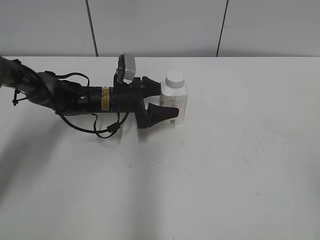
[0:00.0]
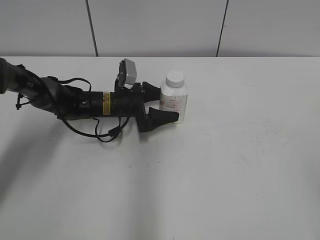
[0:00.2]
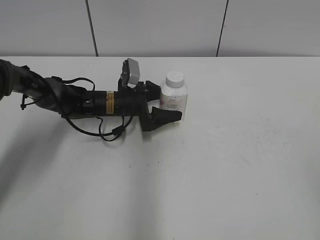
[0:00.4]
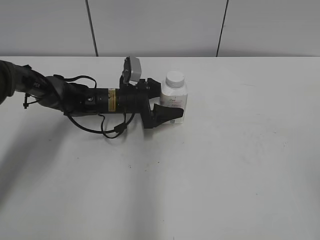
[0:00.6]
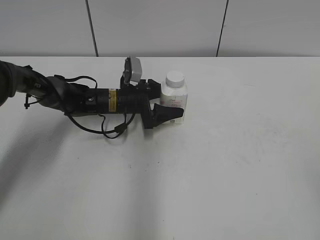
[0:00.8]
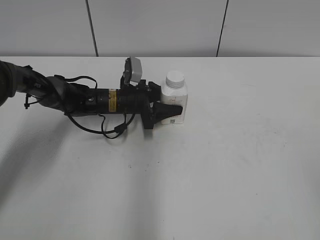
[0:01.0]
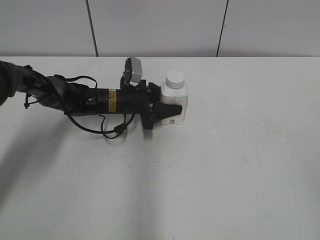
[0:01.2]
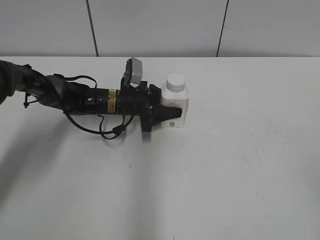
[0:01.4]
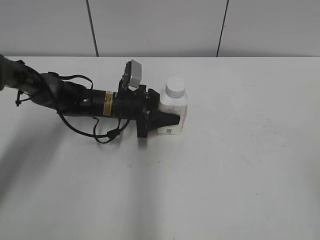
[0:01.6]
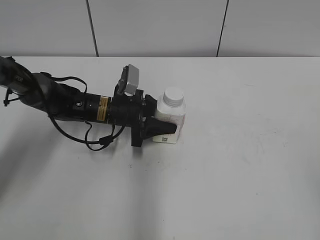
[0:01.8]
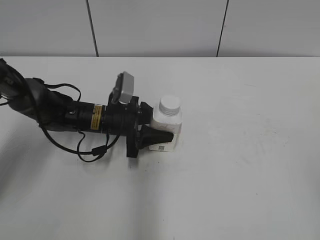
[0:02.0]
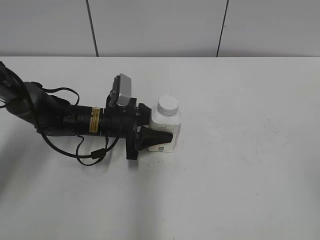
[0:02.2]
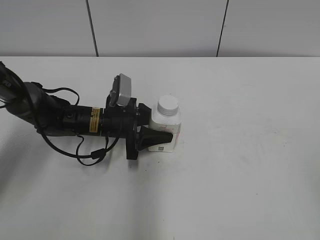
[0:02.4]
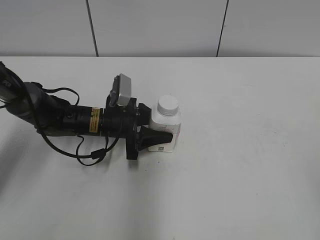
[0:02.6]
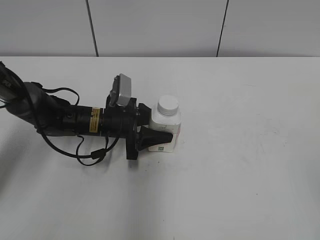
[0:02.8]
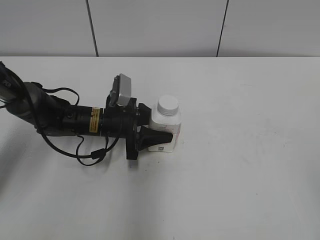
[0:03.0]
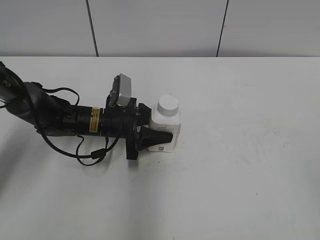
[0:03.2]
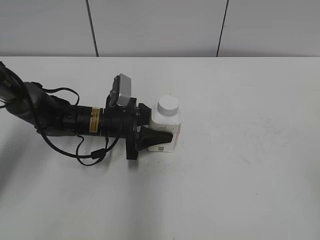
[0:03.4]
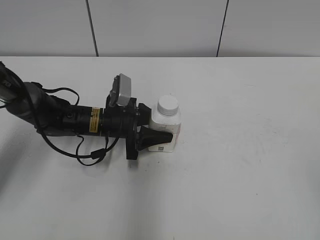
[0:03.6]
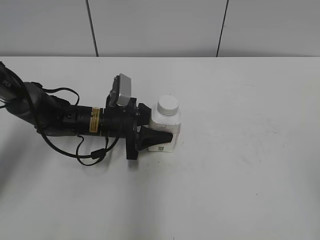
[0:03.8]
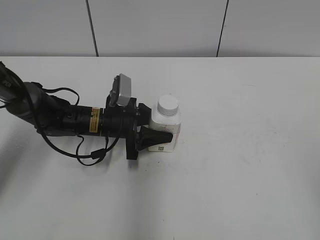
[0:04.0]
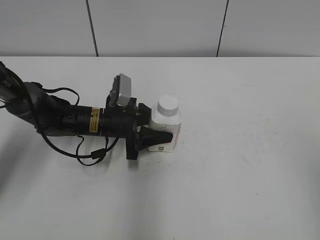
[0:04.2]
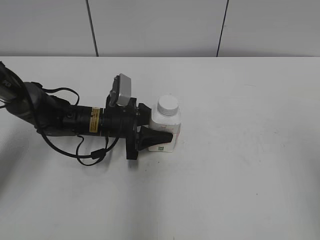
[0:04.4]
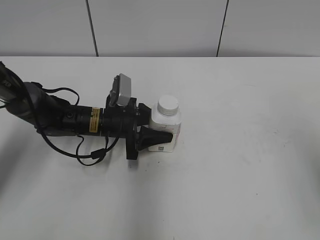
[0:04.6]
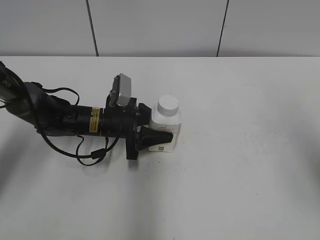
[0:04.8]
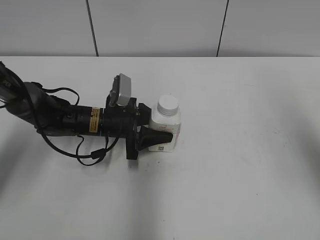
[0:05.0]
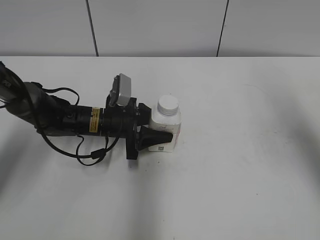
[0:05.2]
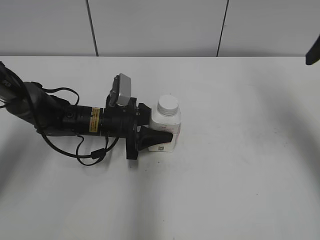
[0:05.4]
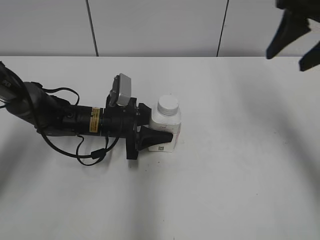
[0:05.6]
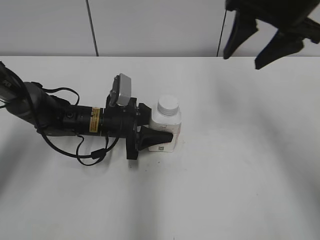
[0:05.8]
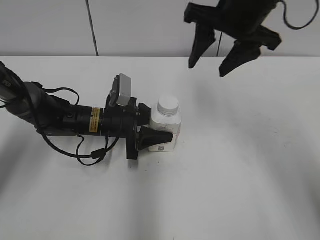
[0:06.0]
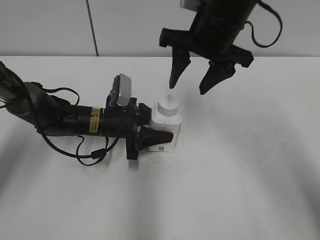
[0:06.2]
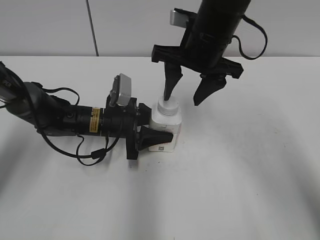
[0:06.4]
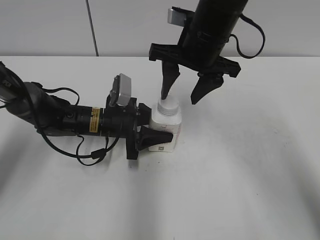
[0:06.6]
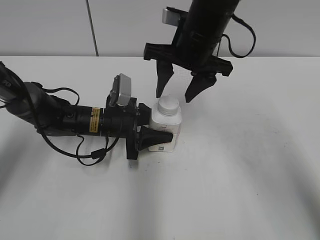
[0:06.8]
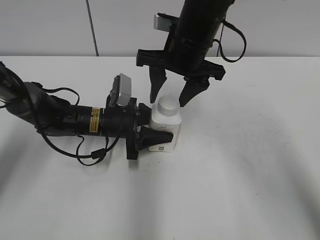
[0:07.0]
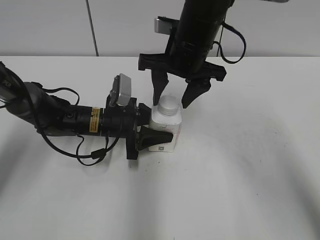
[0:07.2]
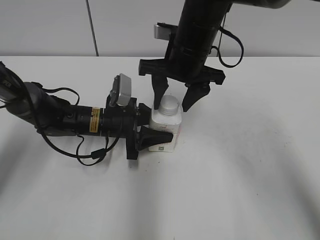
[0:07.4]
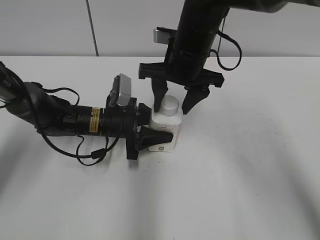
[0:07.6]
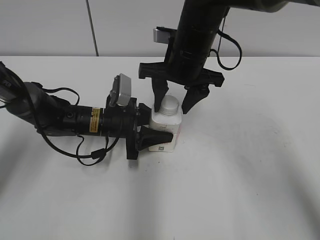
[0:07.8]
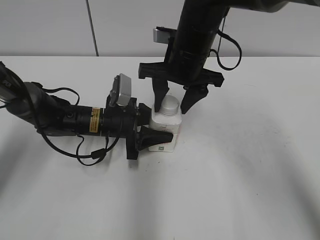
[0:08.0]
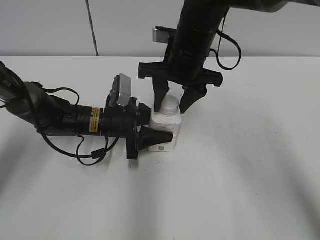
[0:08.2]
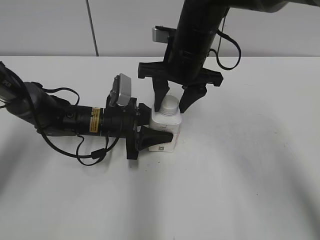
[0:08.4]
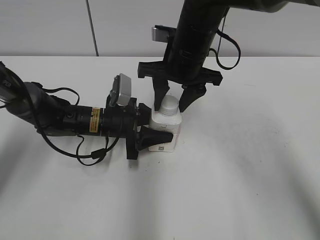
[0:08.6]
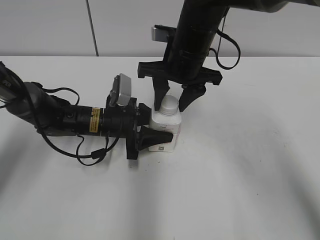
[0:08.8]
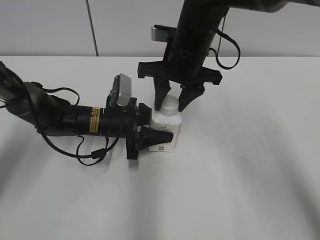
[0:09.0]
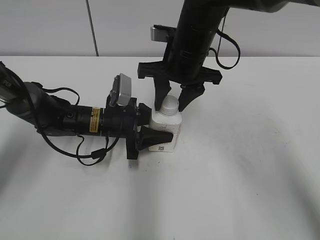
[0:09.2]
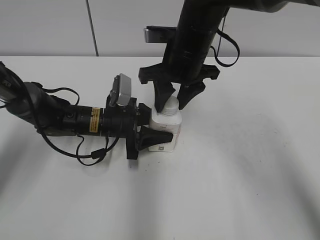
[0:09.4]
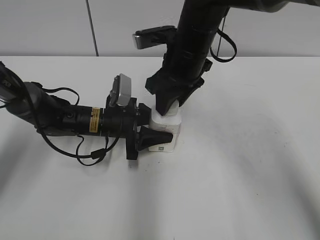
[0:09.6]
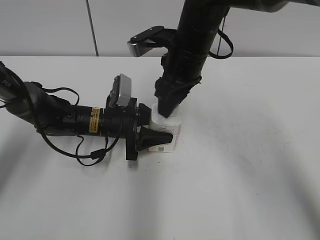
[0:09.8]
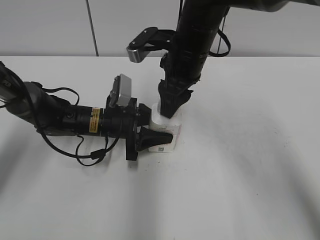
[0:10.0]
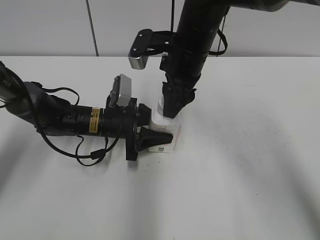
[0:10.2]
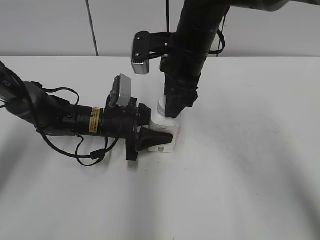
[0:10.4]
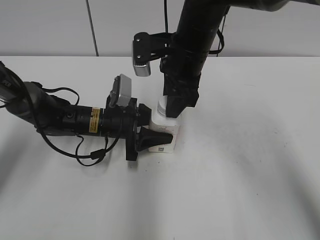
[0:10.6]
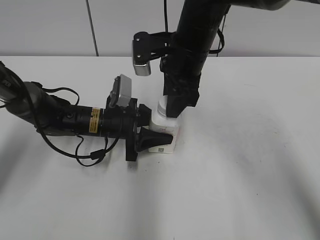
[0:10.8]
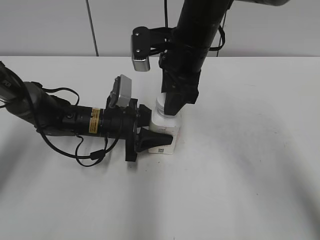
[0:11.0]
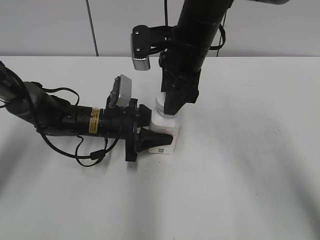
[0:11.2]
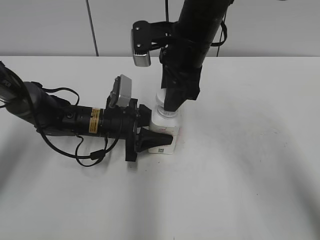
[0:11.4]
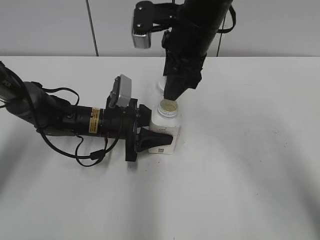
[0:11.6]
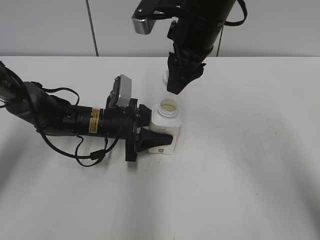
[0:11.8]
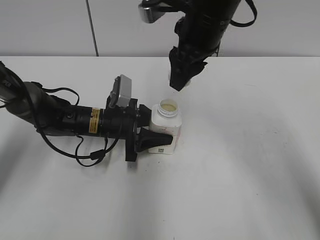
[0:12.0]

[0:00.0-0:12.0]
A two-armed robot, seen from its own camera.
Step, 0:01.4 to 0:03.0: Lift the bottle and move it to the center of the table with the left gripper.
Step, 0:03.2 to 0:11.6: Unscrew the bottle cap with the right gripper while holding the bottle with the left gripper.
0:00.0 to 0:01.6: The left gripper closes.
0:01.6 to 0:03.0: The left gripper moves backward, some 5 cm.
0:04.4 to 0:06.0: The right gripper moves forward and to the left, some 30 cm.
0:06.0 to 0:07.6: The right gripper heads downward and to the left, covering approximately 10 cm.
0:07.6 to 0:09.0: The right gripper closes.
0:10.4 to 0:12.0: The right gripper shifts some 5 cm upward.

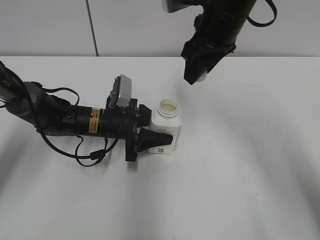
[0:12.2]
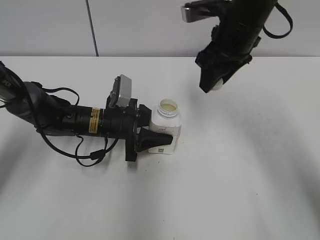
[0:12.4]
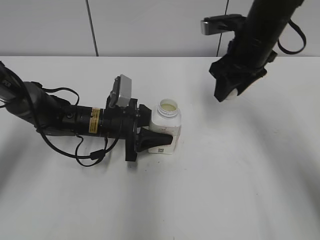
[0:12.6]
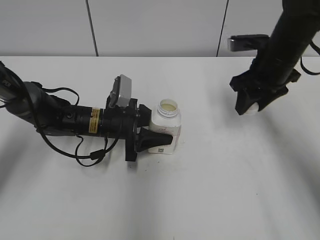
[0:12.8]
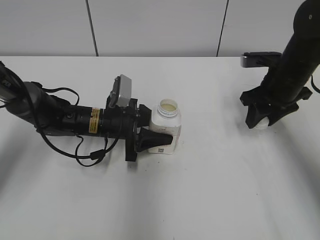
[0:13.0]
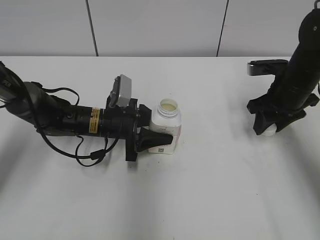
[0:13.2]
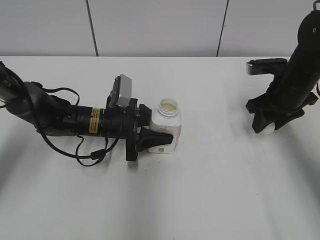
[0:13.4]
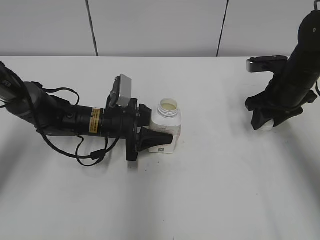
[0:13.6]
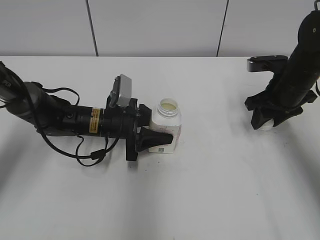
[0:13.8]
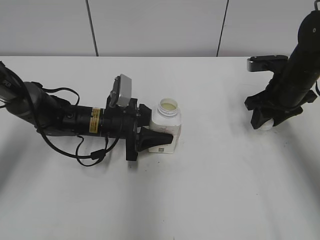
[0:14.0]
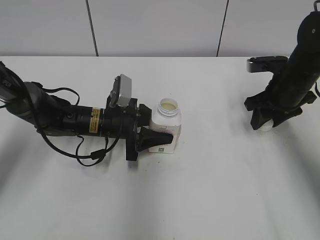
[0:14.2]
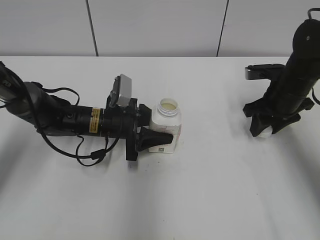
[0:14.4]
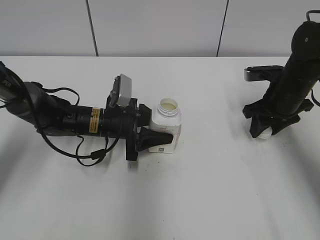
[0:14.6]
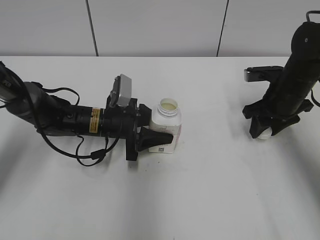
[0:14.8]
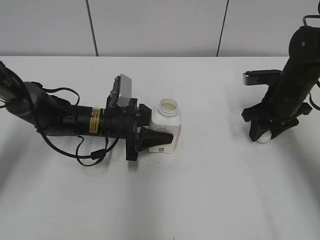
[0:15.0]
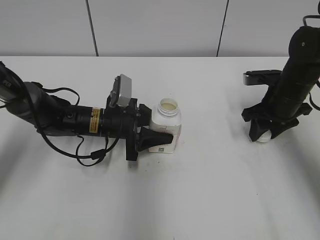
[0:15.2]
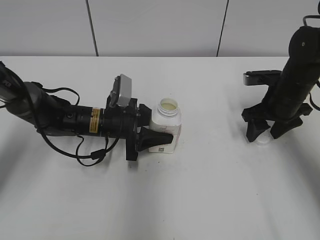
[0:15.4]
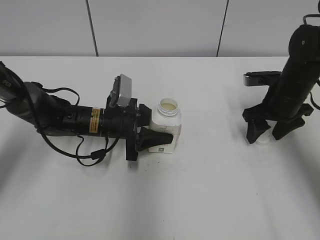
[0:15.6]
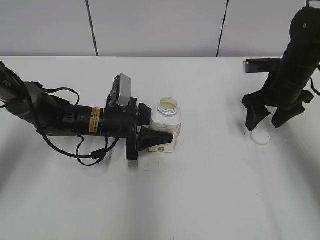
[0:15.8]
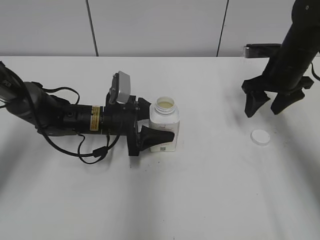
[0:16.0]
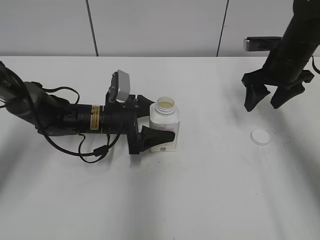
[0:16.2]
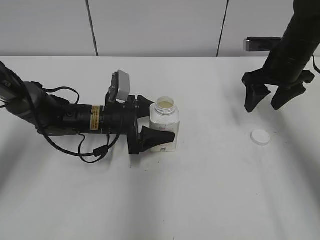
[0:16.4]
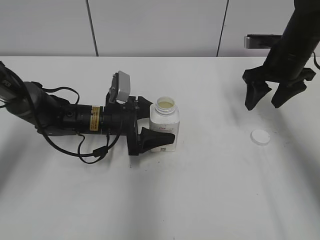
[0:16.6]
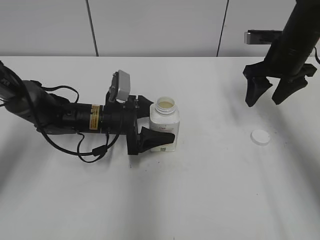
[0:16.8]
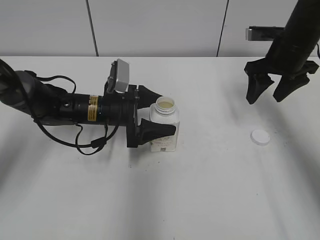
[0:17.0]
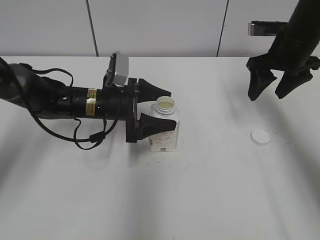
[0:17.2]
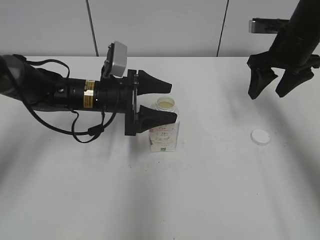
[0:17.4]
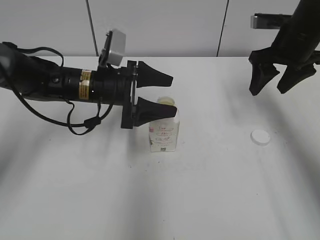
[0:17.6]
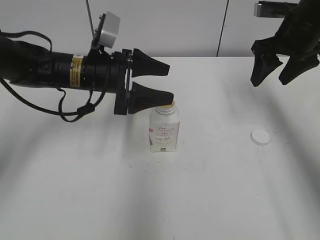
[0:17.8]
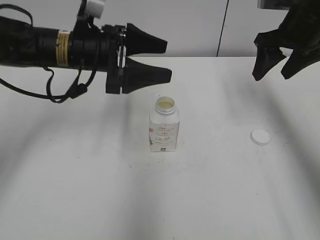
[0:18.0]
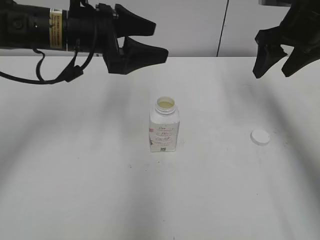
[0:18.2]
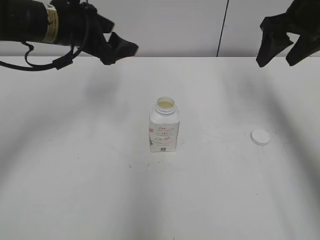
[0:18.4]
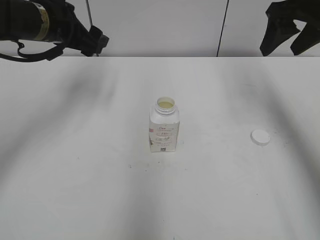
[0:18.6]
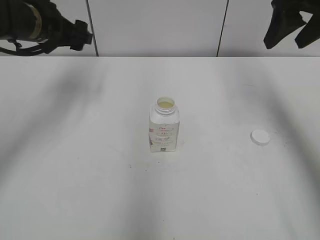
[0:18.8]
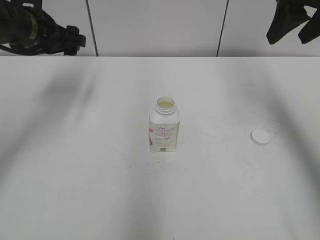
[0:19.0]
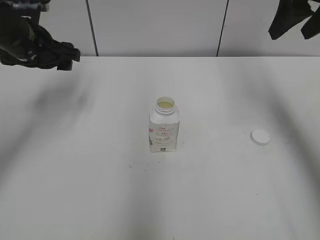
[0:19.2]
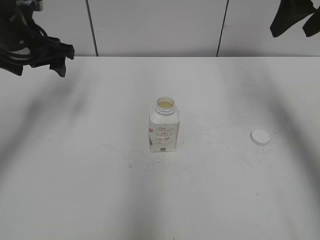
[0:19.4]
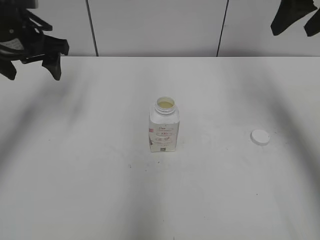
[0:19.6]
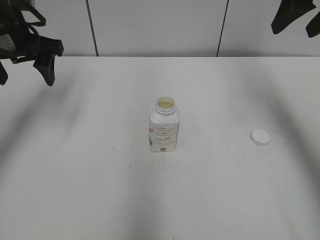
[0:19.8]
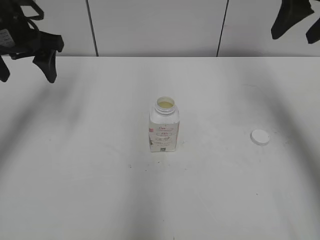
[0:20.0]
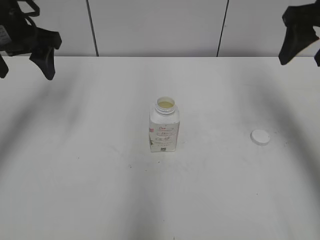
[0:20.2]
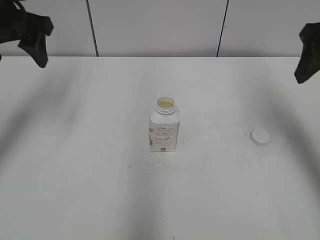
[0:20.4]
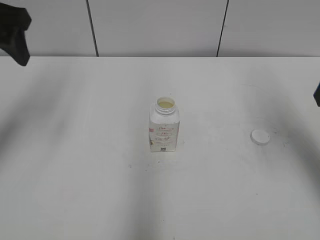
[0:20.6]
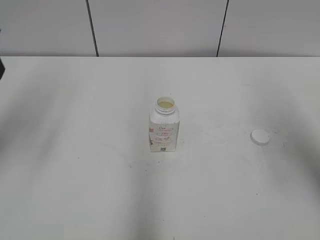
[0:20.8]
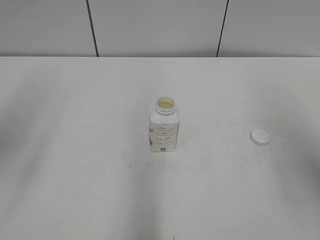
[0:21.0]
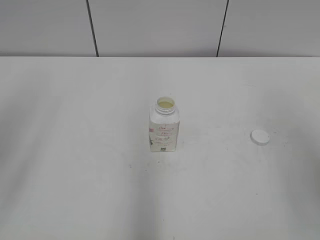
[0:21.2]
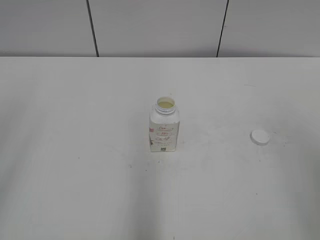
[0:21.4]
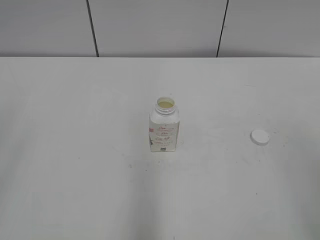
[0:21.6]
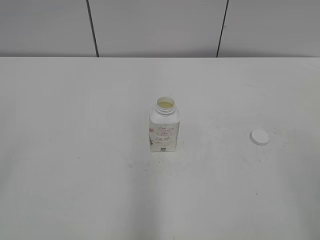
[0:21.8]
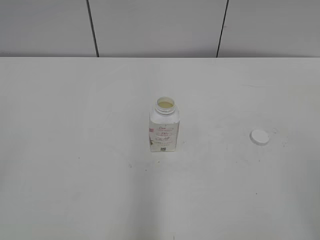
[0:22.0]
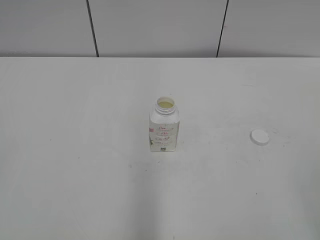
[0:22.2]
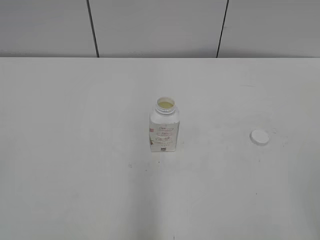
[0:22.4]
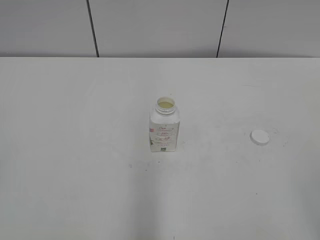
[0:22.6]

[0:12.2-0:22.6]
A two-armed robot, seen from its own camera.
Step, 0:12.2 to 0:15.6: Place the bottle cap on the table with the right gripper.
Step, 0:15.8 to 0:17.2: Place the bottle on the table with the left gripper.
0:12.2 to 0:13.6: The right gripper moves to the right and downward, some 20 cm.
0:13.6 to 0:15.2: There are only small adjustments of the grippers.
0:15.2 to 0:16.6: The left gripper opens; the right gripper is displaced upward by roughly 5 cm, and opens its fingers.
0:16.6 to 0:18.2: The right gripper moves upward, roughly 10 cm. Meanwhile the left gripper heads upward, covering approximately 20 cm.
0:18.2 to 0:19.6: The right gripper heads upward, covering roughly 10 cm. Meanwhile the left gripper heads to the left, covering approximately 10 cm.
0:19.6 to 0:21.2: The left gripper moves backward and upward, approximately 25 cm. The right gripper moves backward, some 25 cm.
